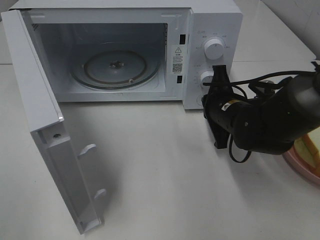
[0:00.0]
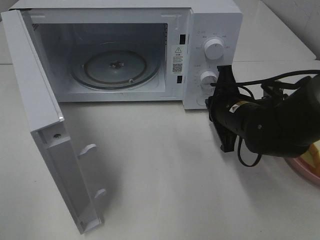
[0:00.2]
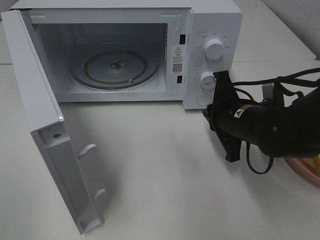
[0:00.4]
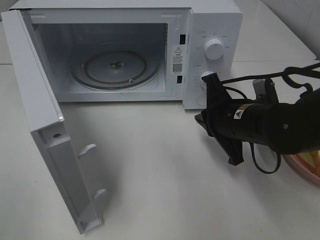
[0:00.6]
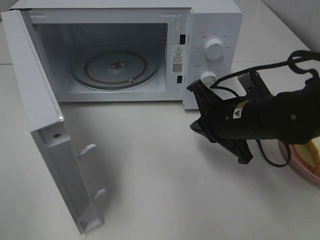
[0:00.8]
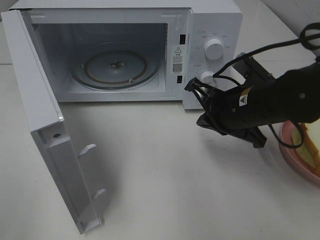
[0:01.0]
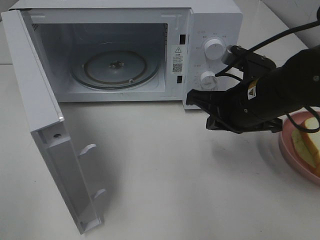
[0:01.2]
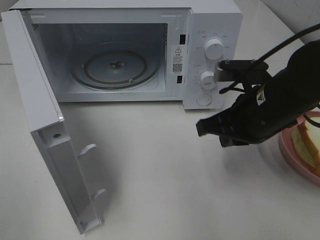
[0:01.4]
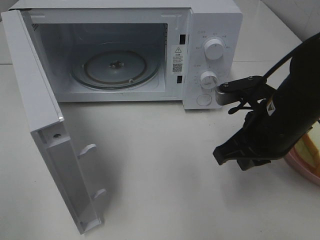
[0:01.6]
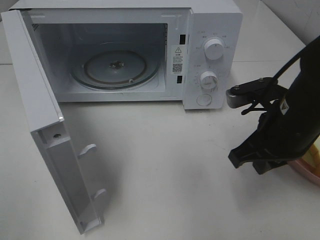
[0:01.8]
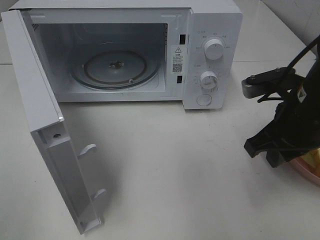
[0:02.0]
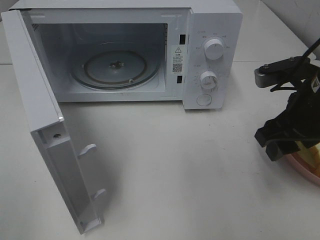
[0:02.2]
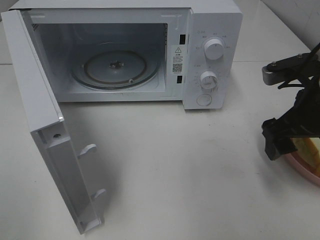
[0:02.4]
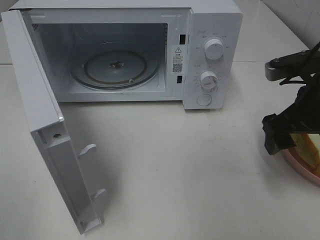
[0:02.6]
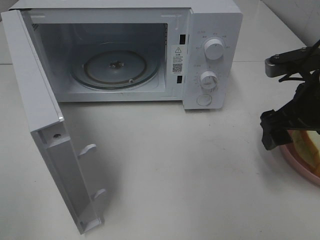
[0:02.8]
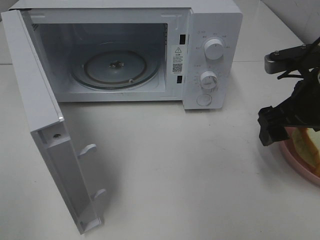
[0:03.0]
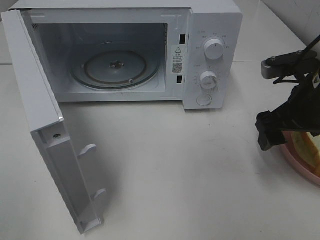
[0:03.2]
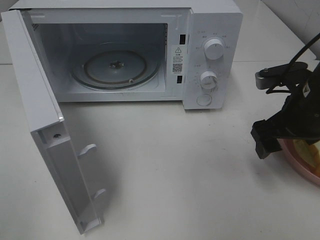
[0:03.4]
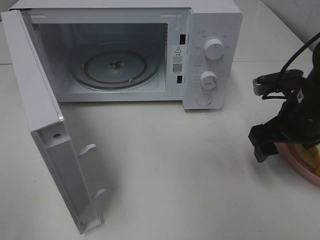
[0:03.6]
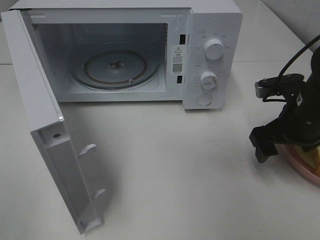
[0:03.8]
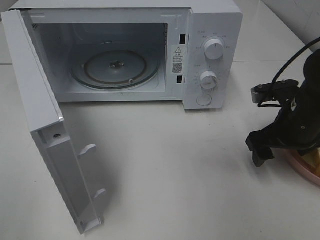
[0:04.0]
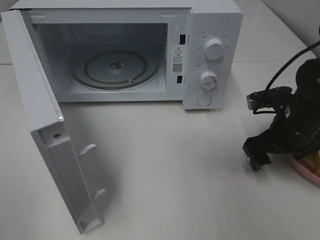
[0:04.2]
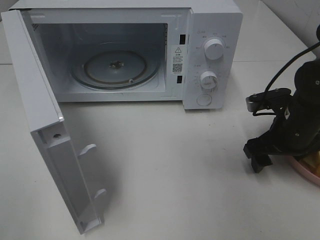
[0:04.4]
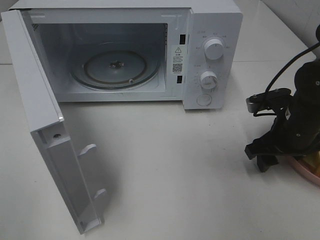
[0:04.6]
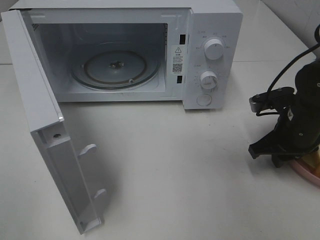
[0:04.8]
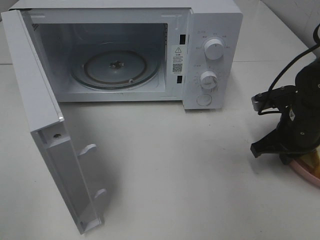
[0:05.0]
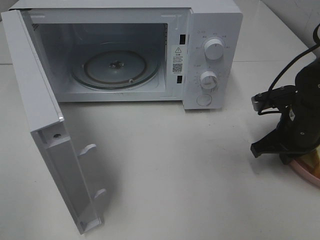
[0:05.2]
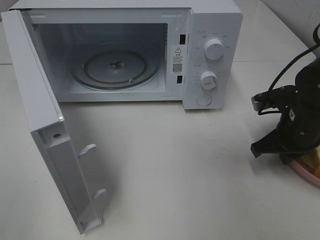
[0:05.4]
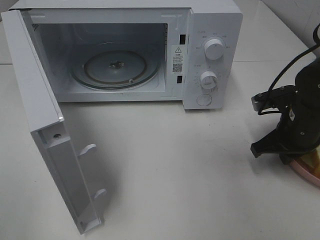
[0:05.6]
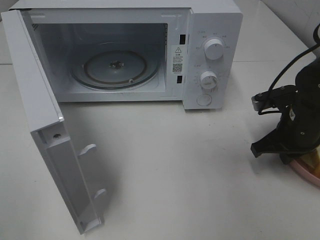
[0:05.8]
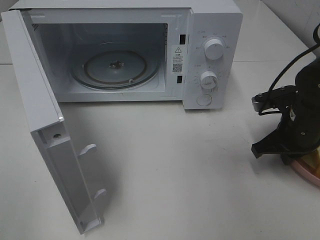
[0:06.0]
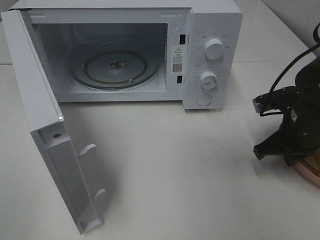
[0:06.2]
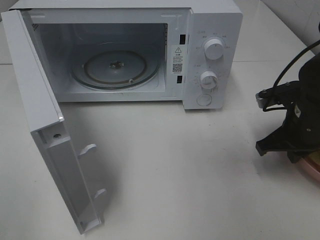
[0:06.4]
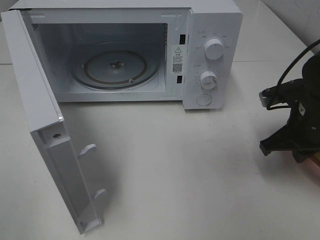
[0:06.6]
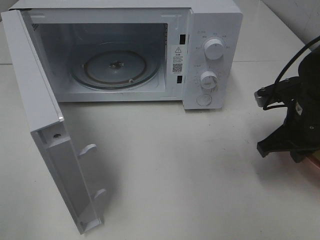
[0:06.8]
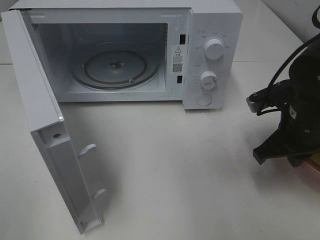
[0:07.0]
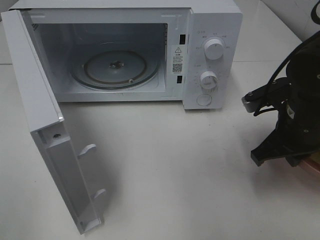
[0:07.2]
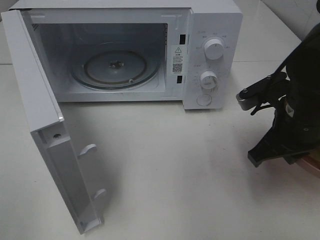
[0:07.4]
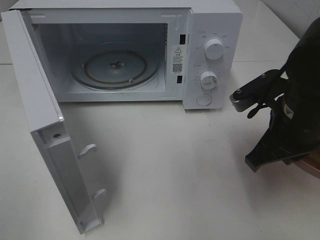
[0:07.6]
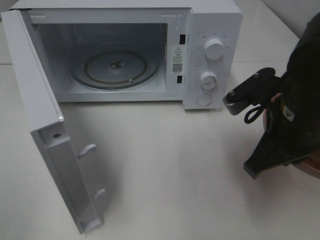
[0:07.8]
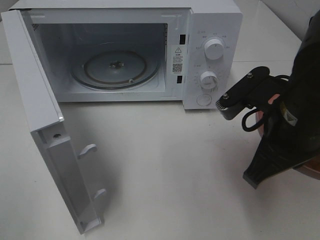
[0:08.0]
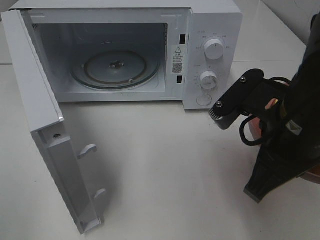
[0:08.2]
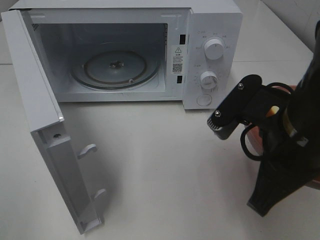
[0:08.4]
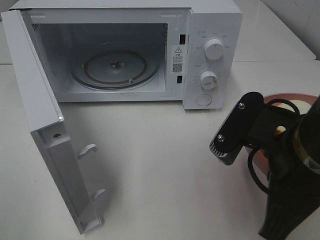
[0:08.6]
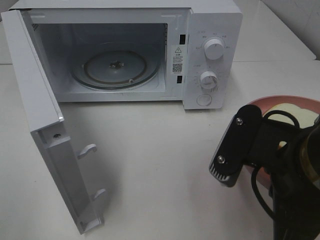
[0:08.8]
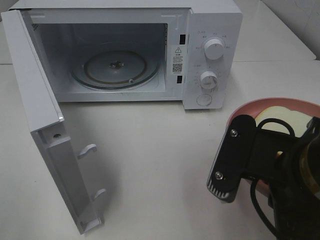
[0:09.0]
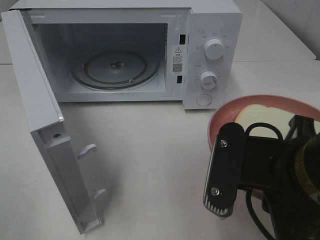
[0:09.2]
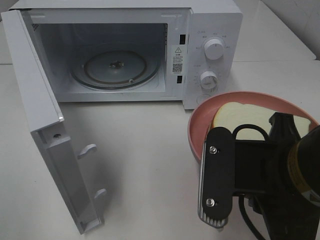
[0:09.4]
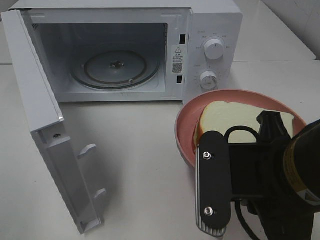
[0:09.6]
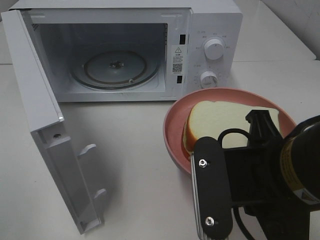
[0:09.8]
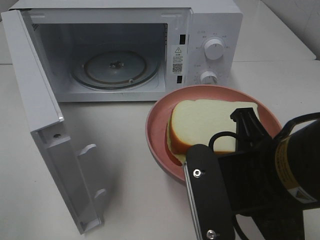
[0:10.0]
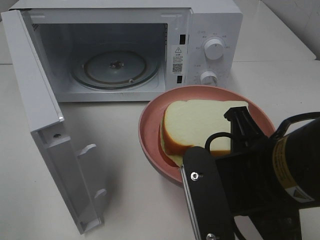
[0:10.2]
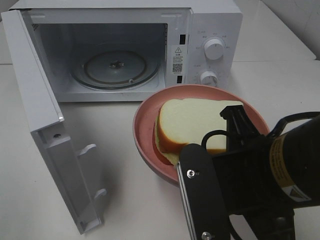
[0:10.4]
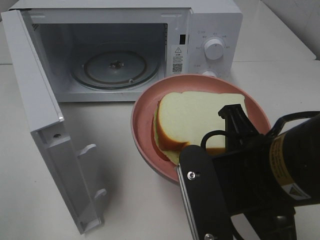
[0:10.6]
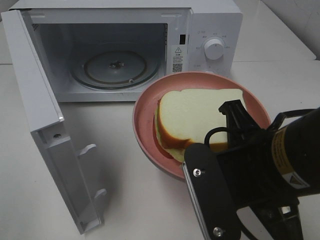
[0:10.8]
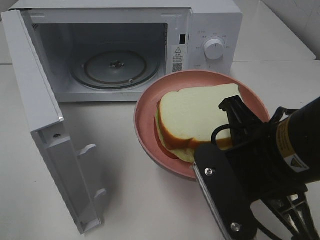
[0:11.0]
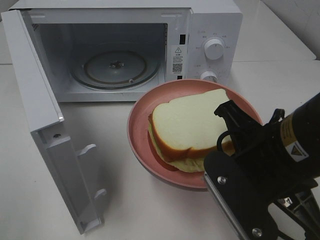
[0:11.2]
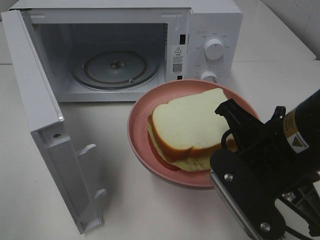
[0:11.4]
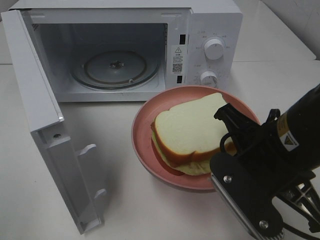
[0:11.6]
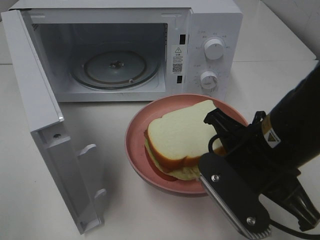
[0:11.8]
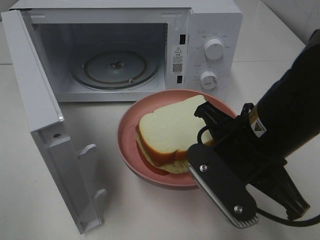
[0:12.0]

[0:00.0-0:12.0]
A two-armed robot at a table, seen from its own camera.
Task of the whole recording: Heat Sandwich.
Step, 0:00.4 to 0:05.6: Right hand: grab the plate with the sandwich.
0:00.0 to 0:01.6: The right gripper goes some 10 cm backward and upward.
0:01.6 to 0:03.0: The right gripper is displaced to the right by some 5 cm, and opens up.
0:03.0 to 0:04.4: The right gripper goes roughly 10 cm downward.
0:04.4 to 0:06.0: The right gripper closes up.
0:06.0 to 0:07.6: The right gripper shifts some 10 cm upward, to the left and backward.
0:07.6 to 0:09.0: The right gripper goes some 10 cm backward.
0:10.4 to 0:12.0: The right gripper travels forward by roughly 5 cm.

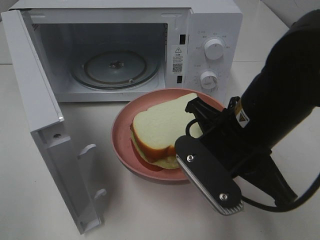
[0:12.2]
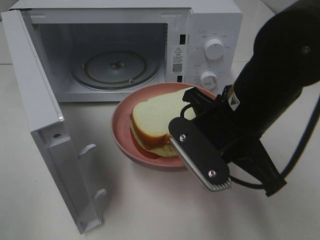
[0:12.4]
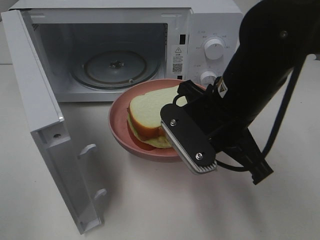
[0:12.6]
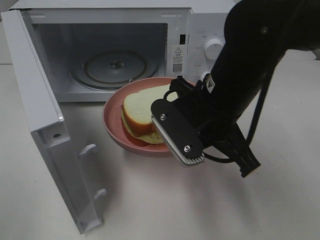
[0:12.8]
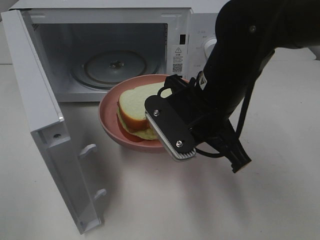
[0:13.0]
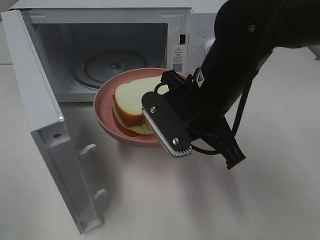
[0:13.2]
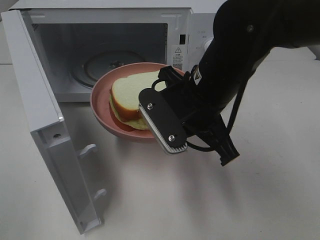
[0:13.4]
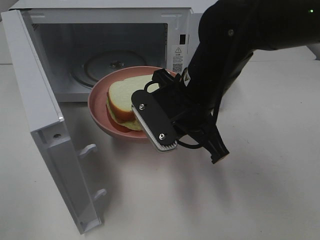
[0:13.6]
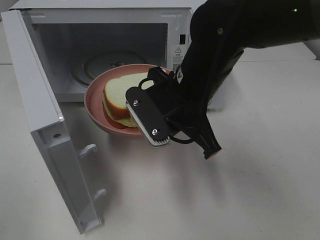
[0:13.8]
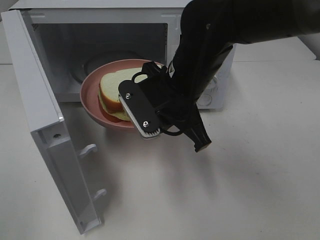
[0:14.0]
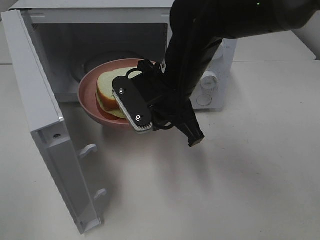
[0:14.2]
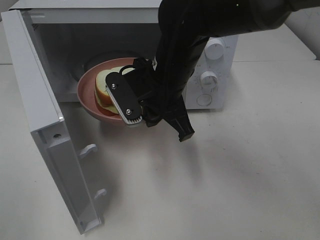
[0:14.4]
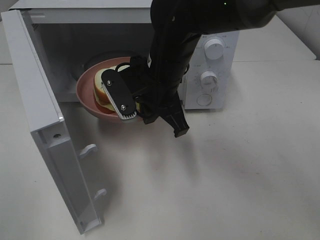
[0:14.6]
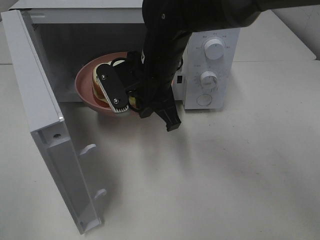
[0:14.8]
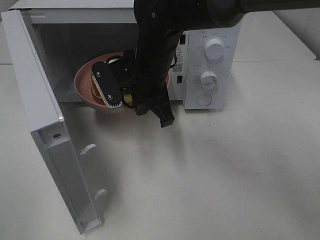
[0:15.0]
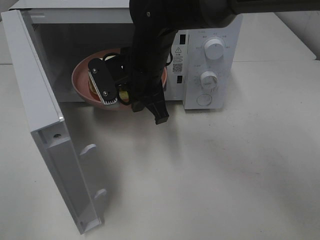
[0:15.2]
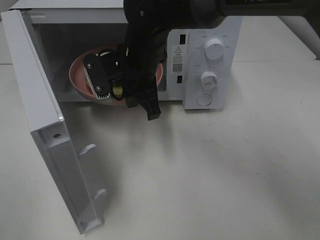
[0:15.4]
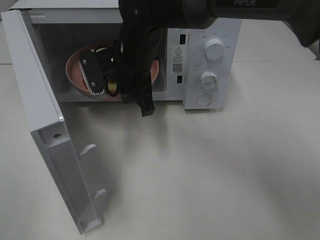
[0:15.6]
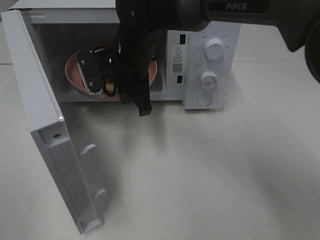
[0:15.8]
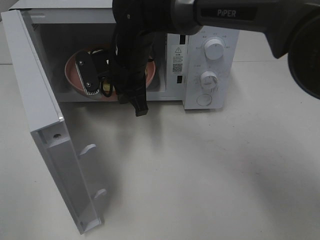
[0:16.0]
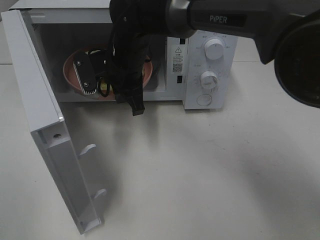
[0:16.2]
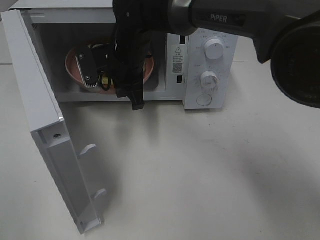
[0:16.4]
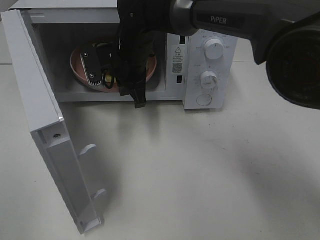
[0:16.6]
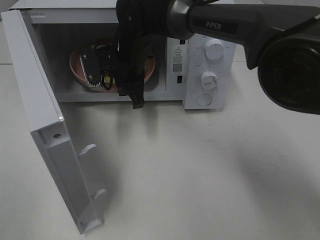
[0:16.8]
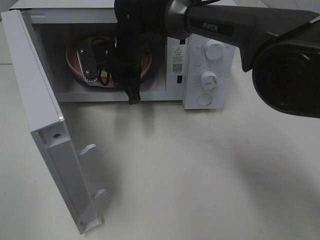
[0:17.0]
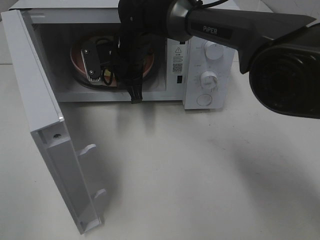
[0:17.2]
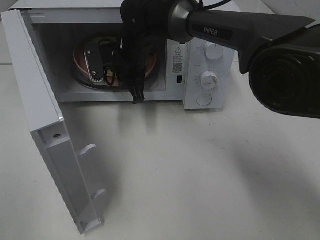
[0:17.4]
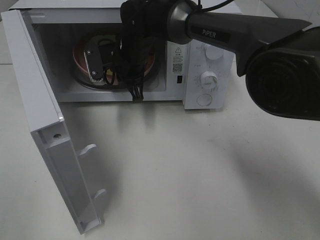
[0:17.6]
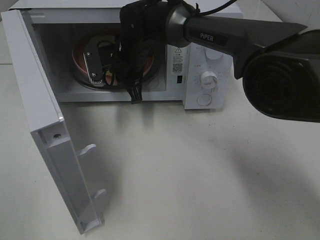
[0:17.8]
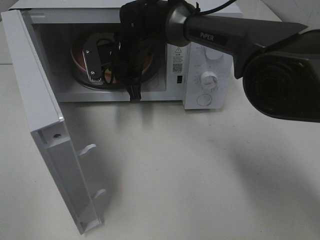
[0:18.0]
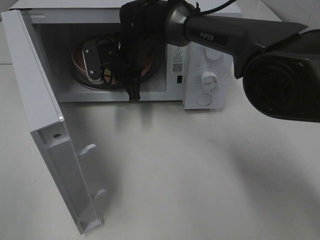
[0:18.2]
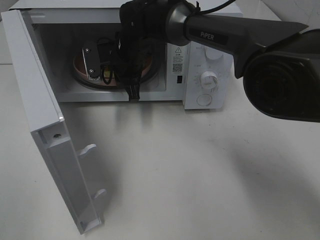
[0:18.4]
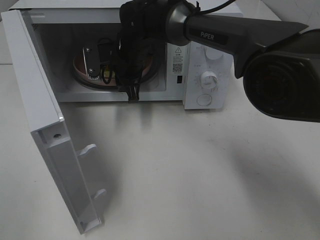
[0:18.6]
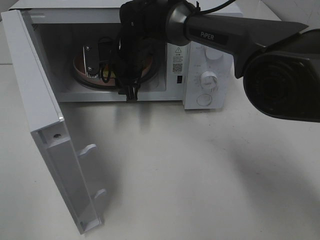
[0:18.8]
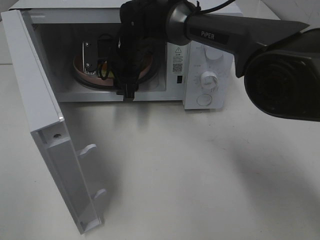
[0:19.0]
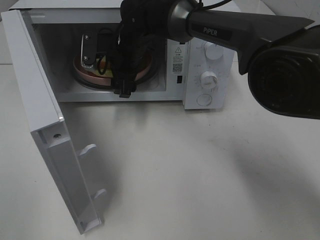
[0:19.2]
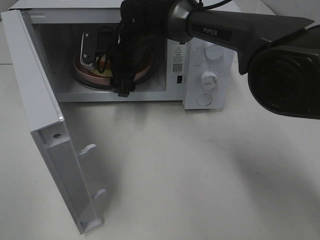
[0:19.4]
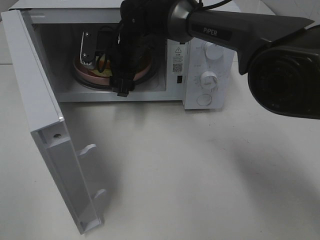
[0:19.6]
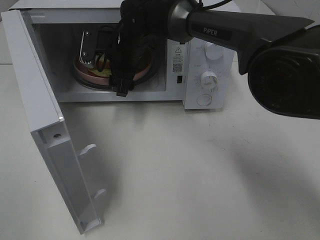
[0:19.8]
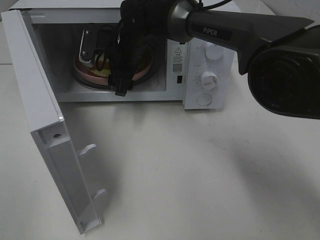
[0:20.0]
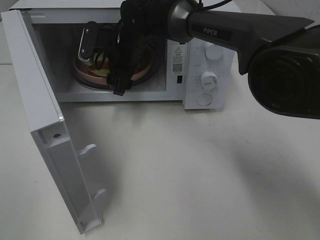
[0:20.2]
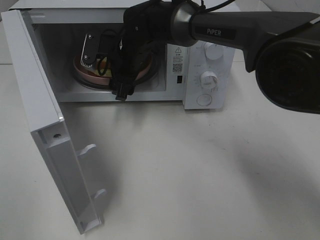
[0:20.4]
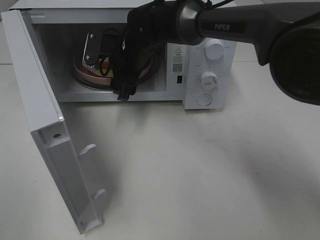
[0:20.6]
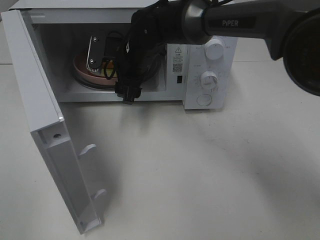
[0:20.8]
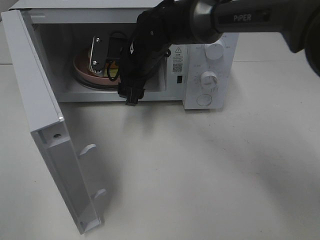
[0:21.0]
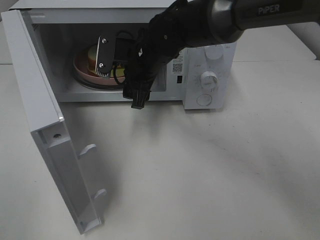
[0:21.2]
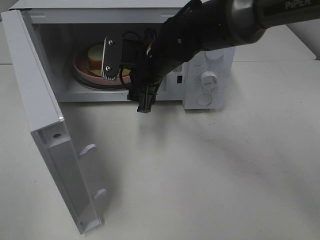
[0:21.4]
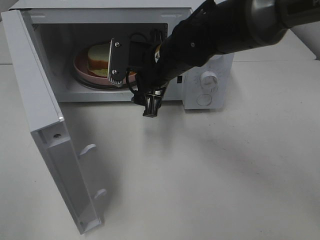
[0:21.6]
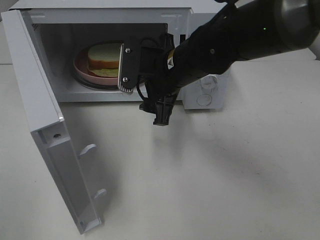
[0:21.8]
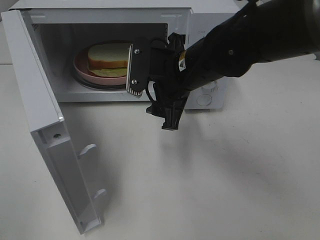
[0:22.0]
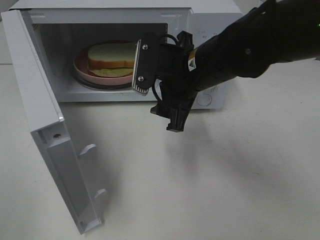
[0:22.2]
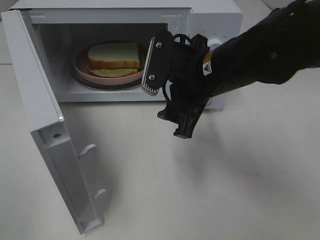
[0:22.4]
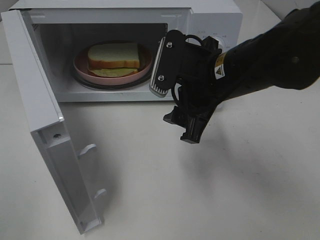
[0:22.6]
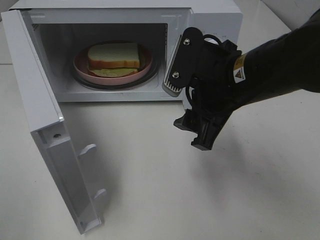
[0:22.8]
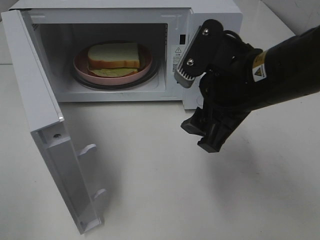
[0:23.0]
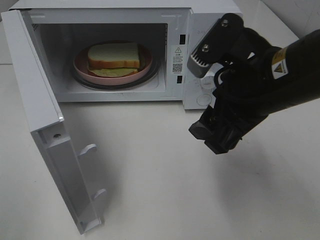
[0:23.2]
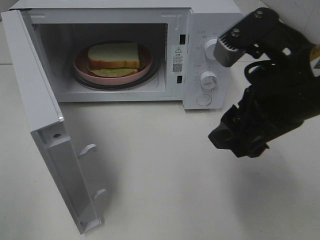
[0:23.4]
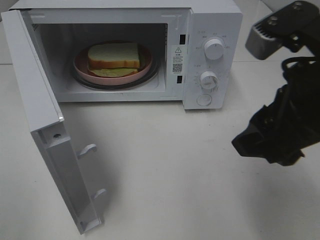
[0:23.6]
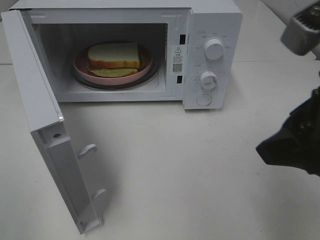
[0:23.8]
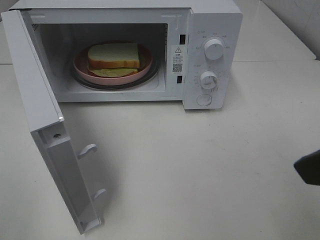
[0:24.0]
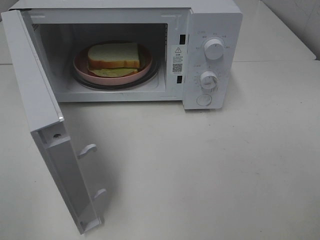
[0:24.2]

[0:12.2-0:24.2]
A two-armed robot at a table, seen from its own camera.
Task of the whole recording: Heat Sandwich.
Step, 0:12.2 to 0:20.0: Right hand: place the plate in the microwave.
0:12.2 to 0:13.8: The right gripper goes some 10 cm forward and to the left.
0:13.8 to 0:15.2: The right gripper is displaced forward and to the left by approximately 10 cm.
0:15.2 to 0:16.6: The right gripper heads forward, covering roughly 5 cm.
0:16.6 to 0:18.2: The grippers move only a little.
0:18.2 to 0:19.8: The right gripper opens.
0:19.8 to 0:21.2: The right gripper shifts some 5 cm backward.
0:21.2 to 0:22.6: The right gripper is displaced backward and to the right by about 15 cm.
0:22.6 to 0:24.2: The right gripper goes some 25 cm backward, to the right and upward.
